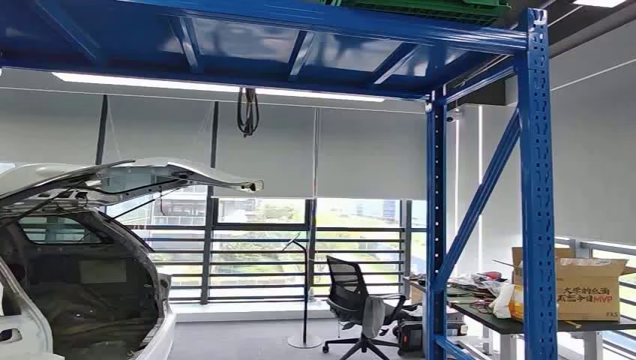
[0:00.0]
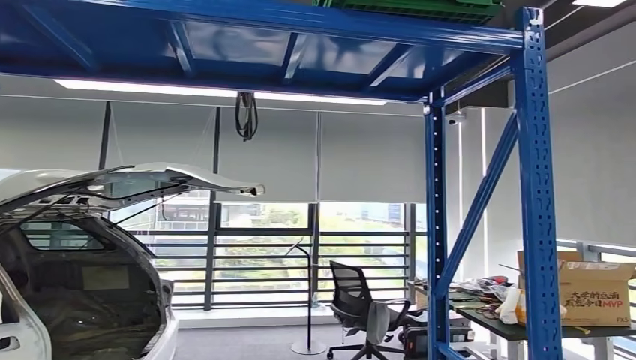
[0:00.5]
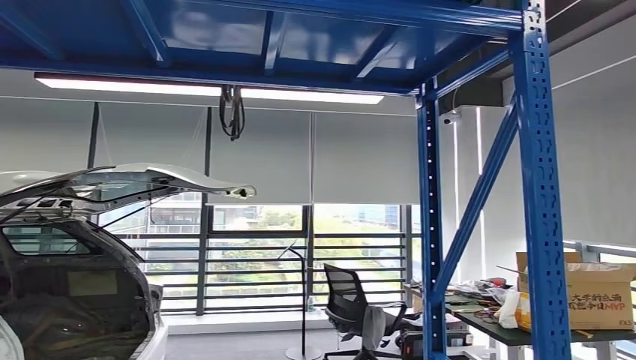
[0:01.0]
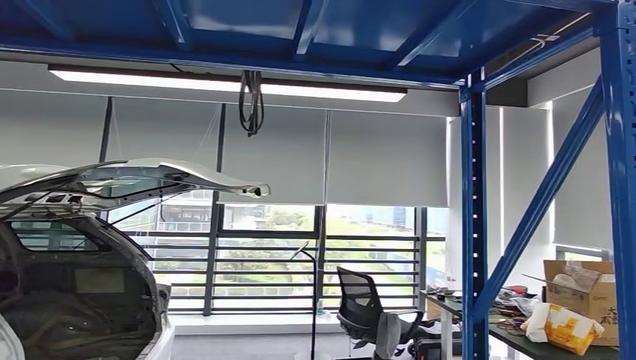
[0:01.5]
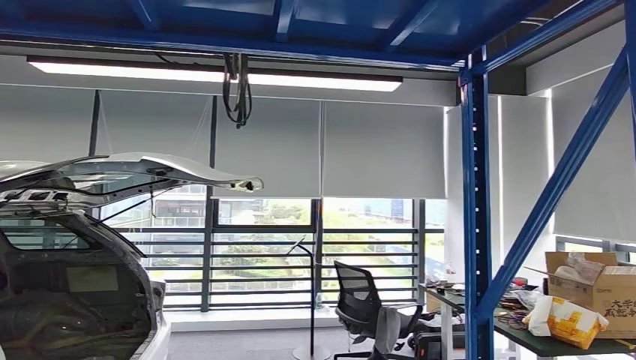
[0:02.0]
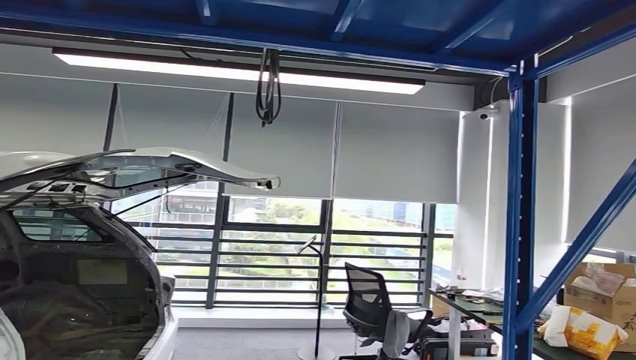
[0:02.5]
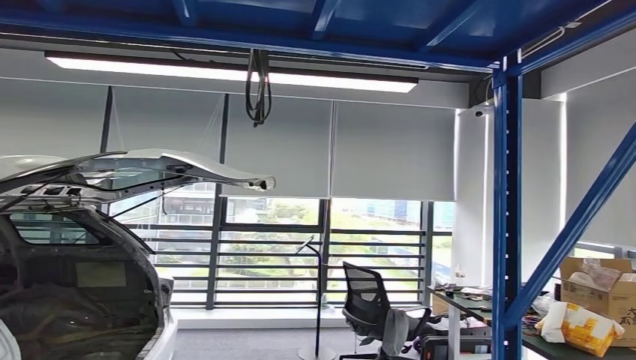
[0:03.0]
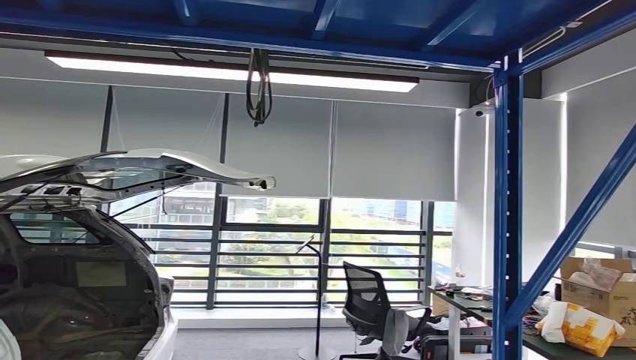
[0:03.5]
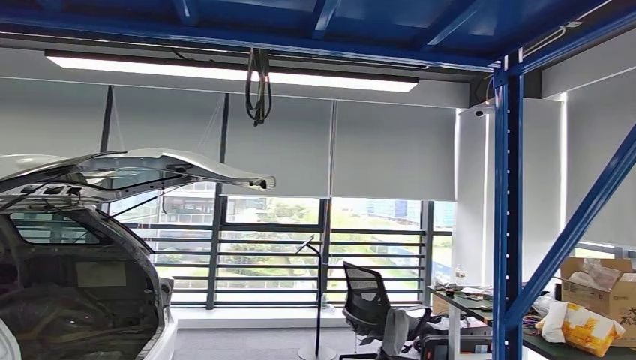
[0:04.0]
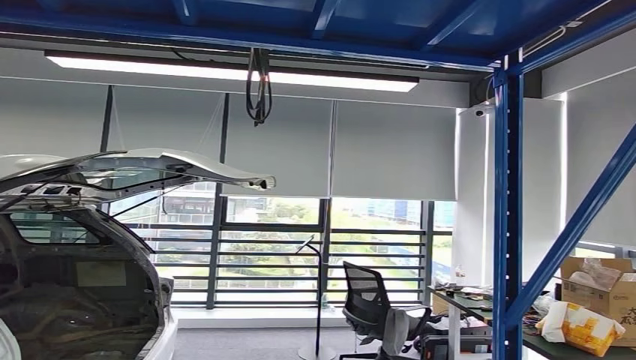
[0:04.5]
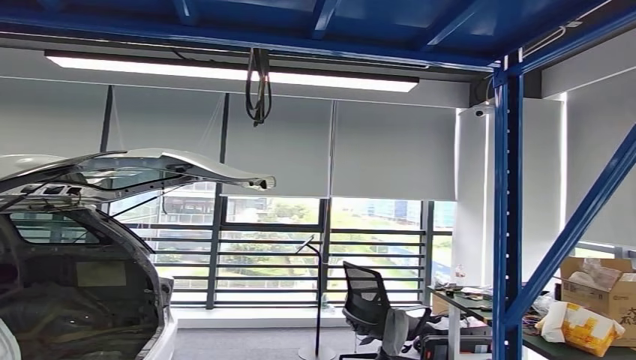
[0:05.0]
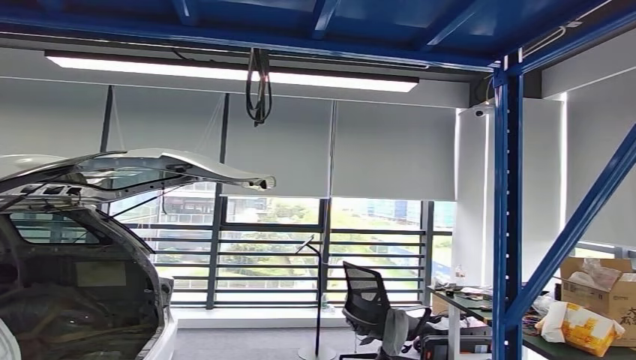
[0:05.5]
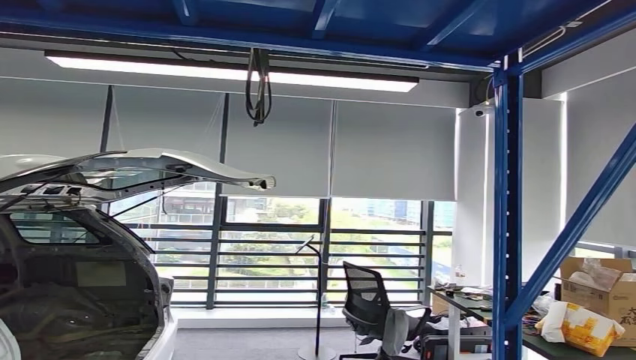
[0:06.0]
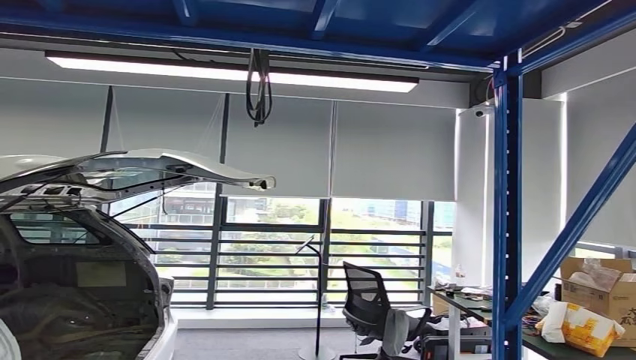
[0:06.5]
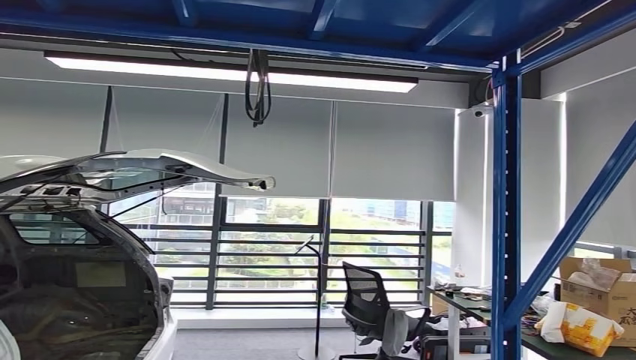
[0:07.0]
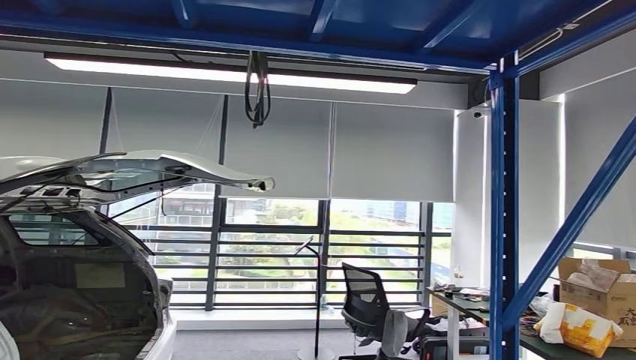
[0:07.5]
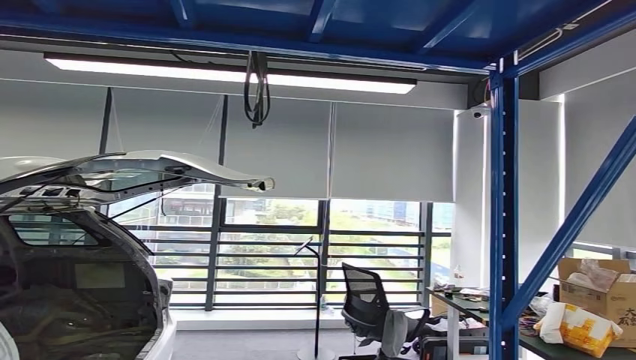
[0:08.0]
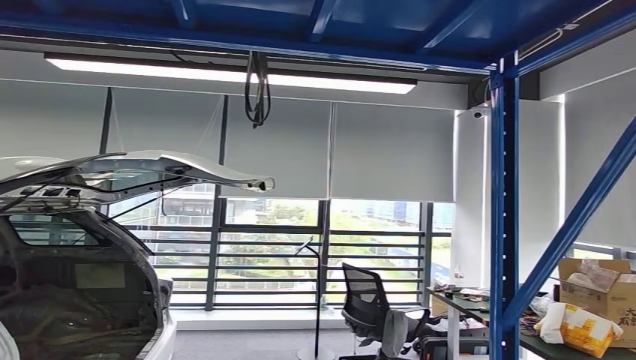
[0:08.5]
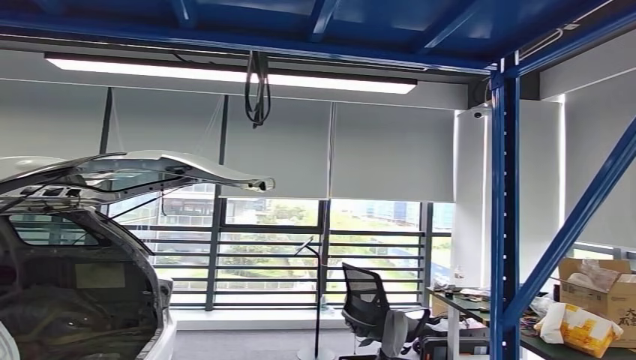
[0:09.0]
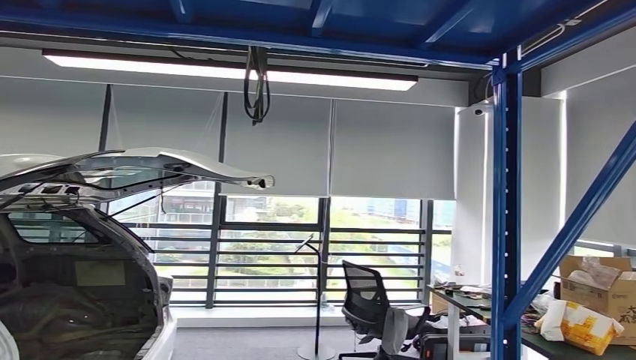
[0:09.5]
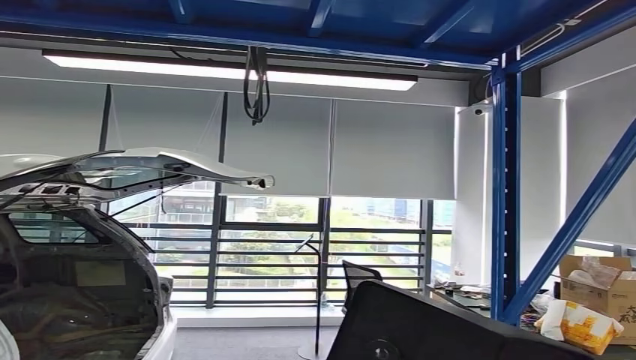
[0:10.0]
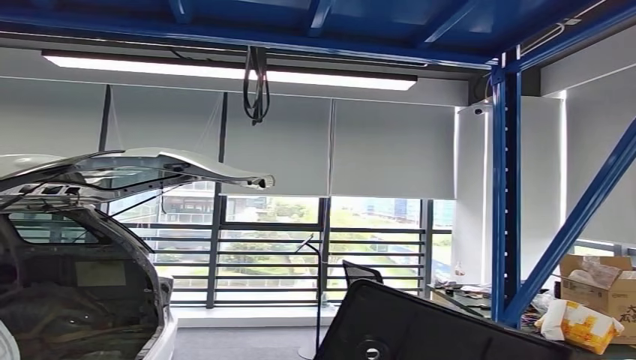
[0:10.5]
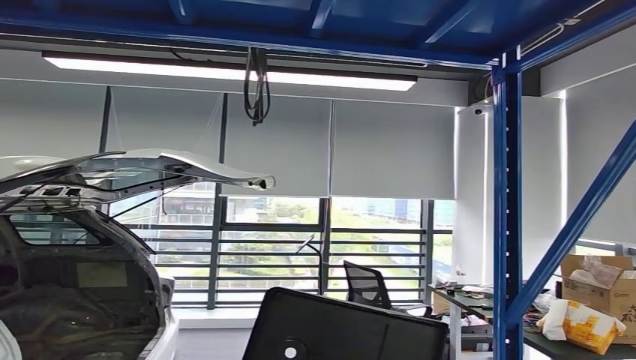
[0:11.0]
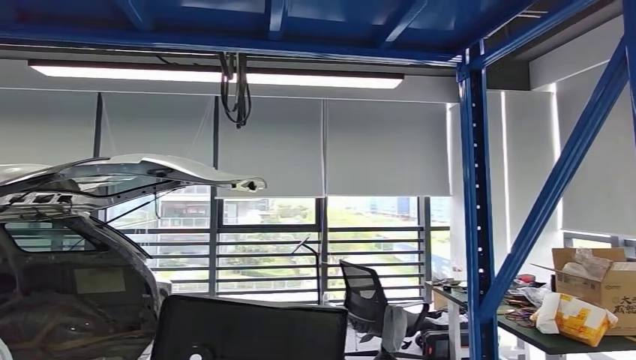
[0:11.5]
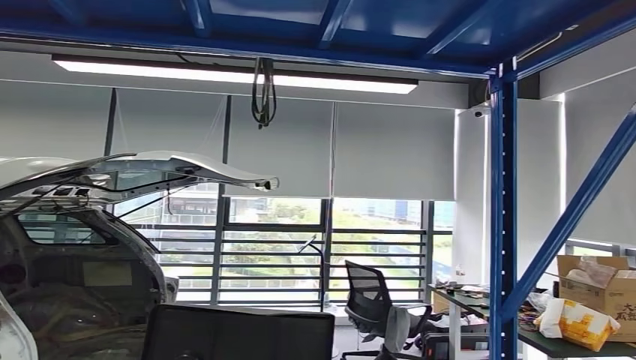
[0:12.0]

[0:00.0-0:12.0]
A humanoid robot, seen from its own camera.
Step, 0:00.0 to 0:10.5: Pick up the small component from the shelf.

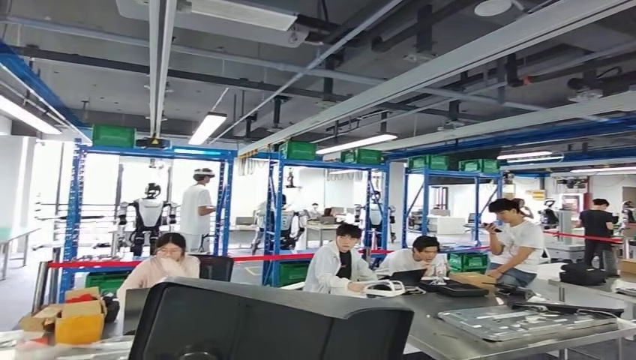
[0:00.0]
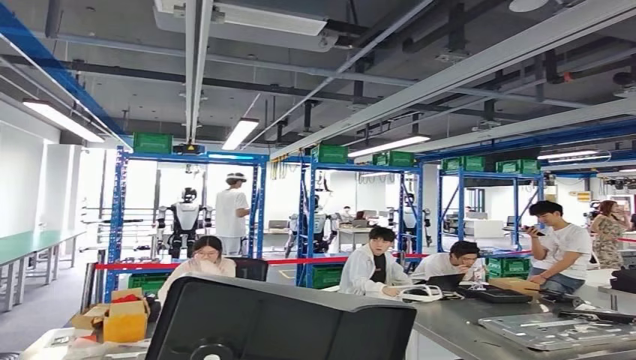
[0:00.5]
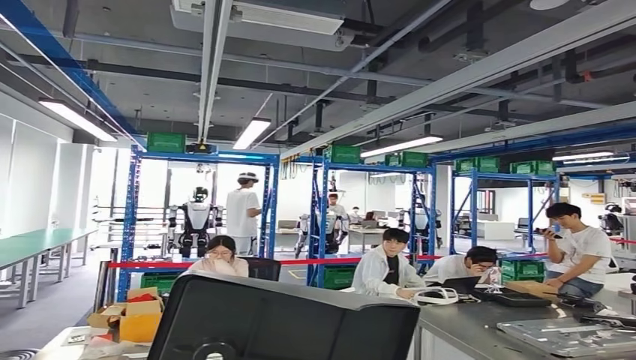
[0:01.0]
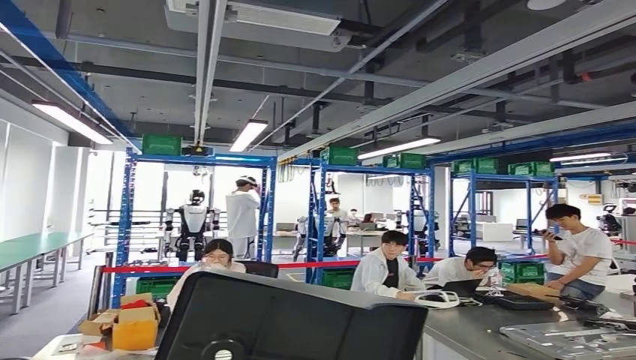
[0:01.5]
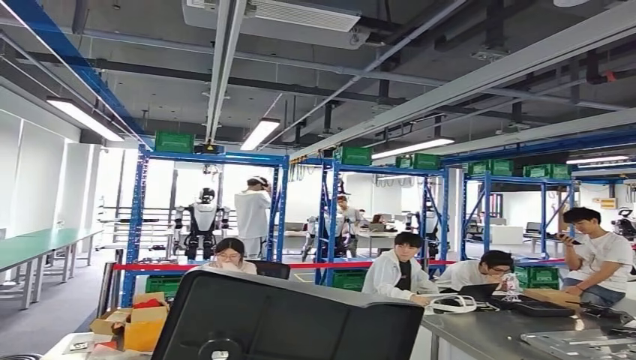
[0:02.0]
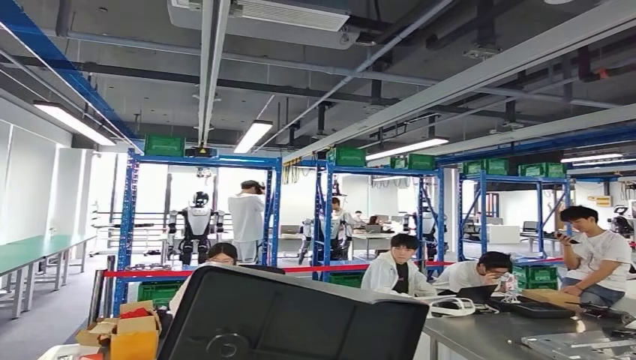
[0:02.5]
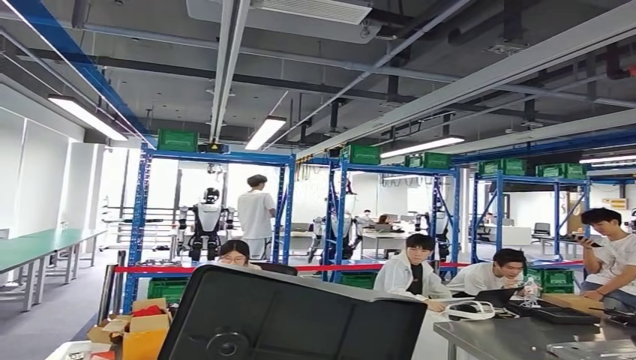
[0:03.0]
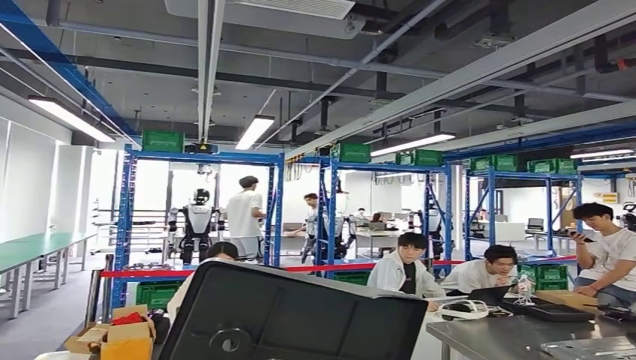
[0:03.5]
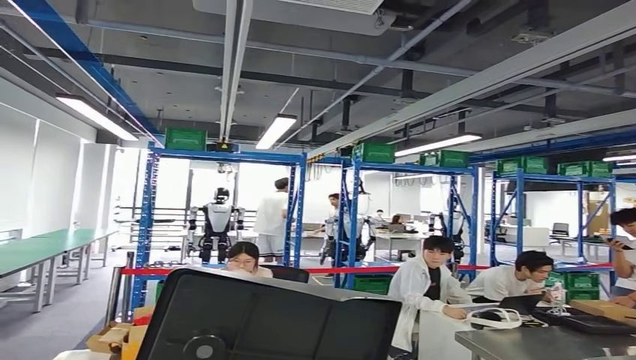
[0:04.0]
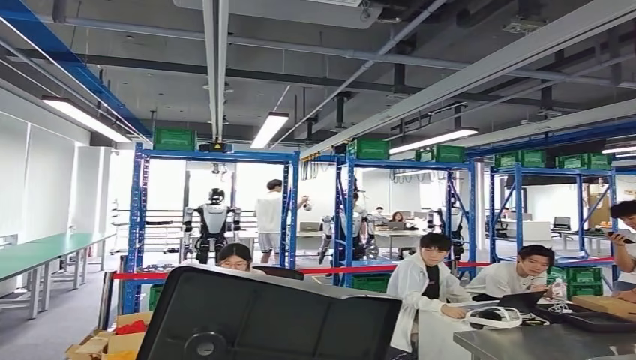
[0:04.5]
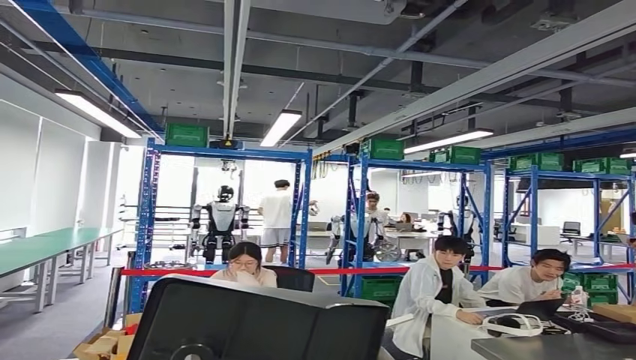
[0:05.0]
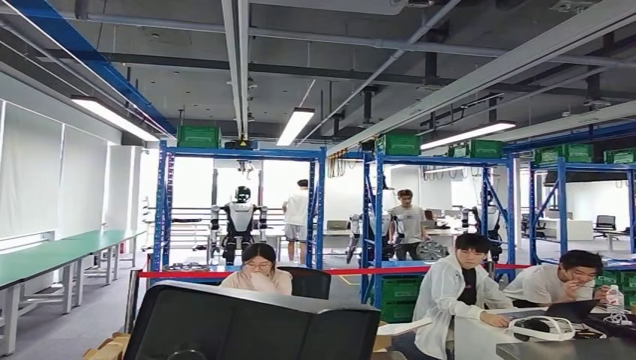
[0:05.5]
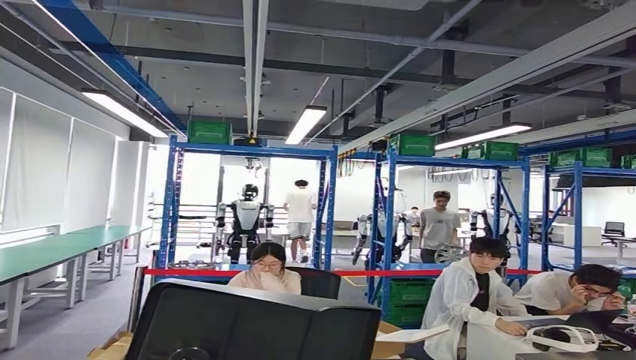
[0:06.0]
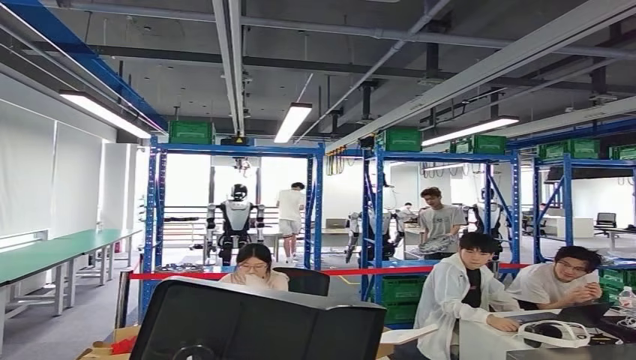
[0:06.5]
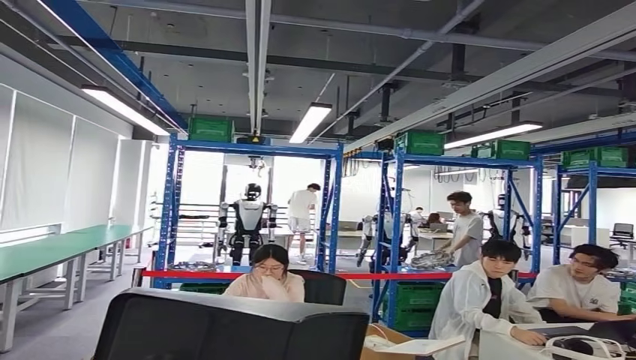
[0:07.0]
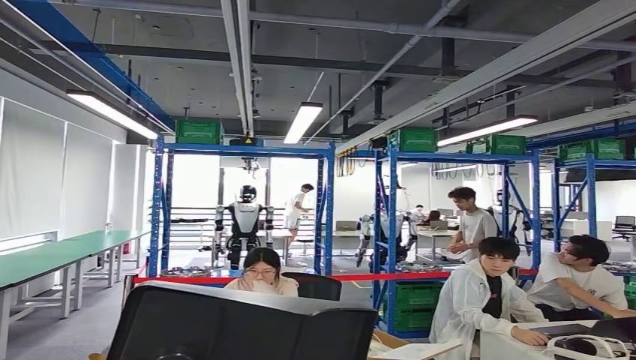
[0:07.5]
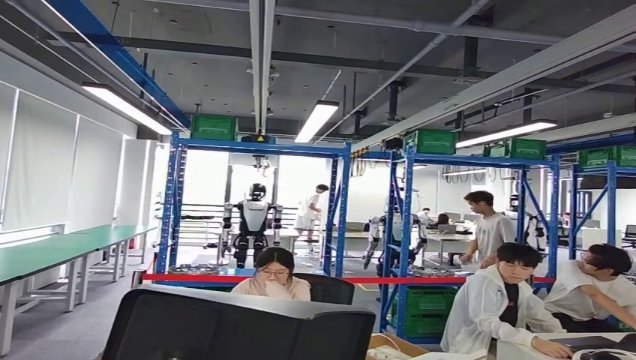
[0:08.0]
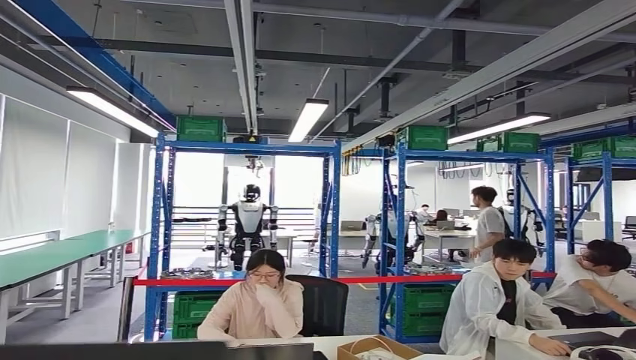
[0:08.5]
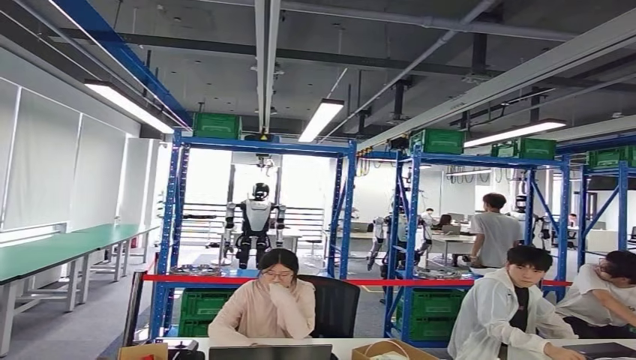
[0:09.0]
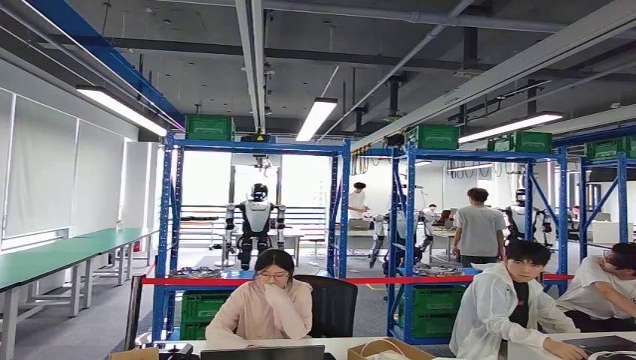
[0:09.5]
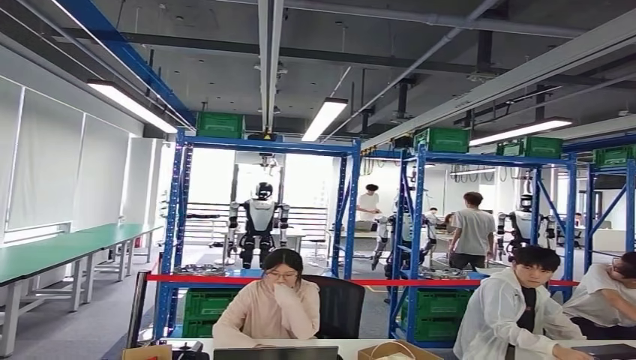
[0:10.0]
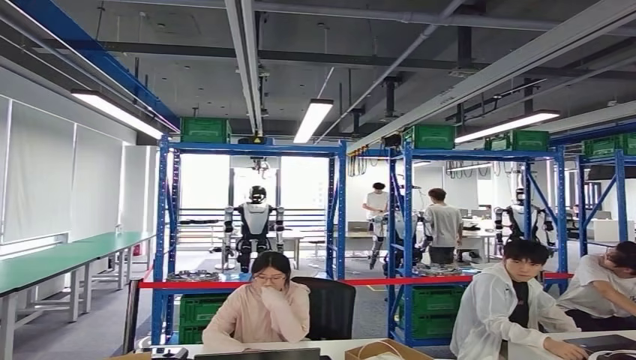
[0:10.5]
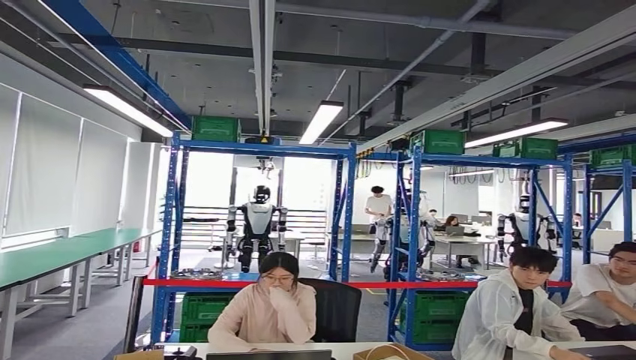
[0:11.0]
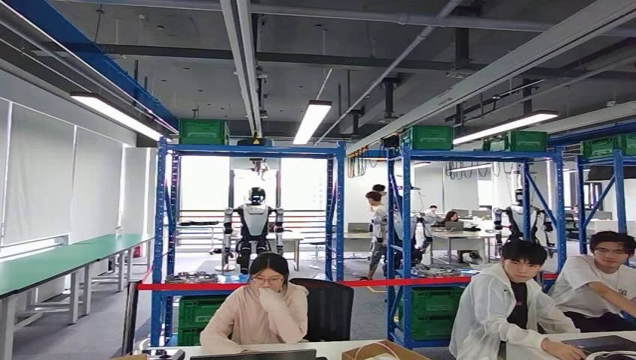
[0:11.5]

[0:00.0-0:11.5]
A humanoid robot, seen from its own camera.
Step, 0:00.0 to 0:08.0: Move the small component to the workbench.
